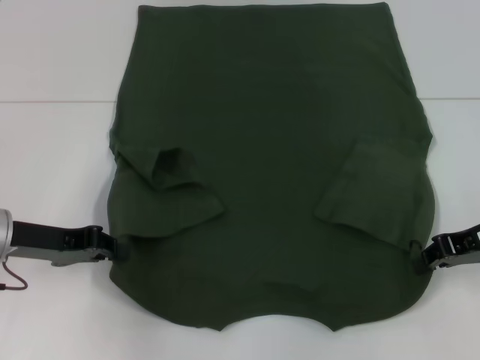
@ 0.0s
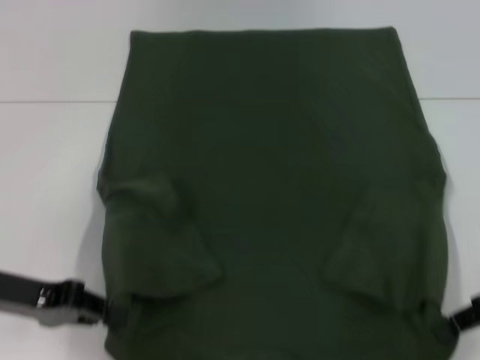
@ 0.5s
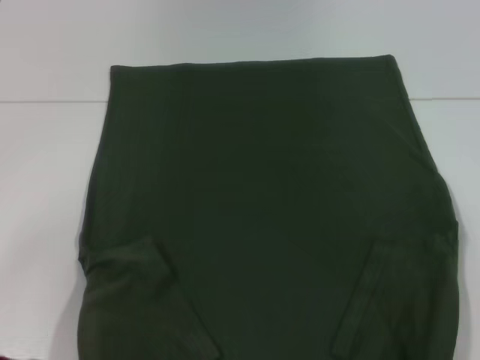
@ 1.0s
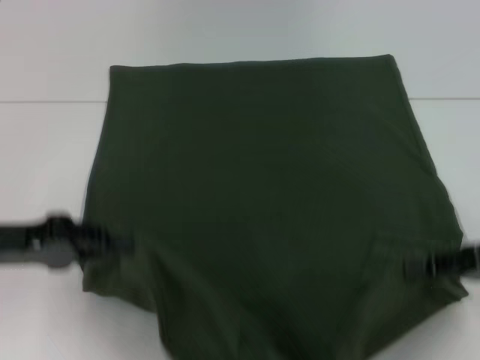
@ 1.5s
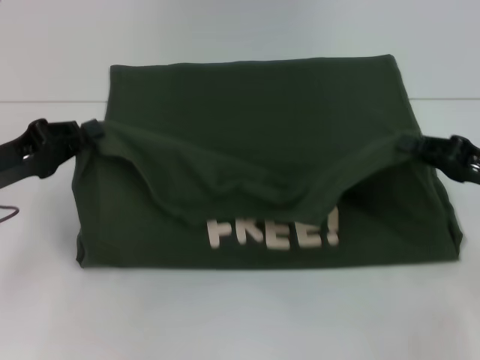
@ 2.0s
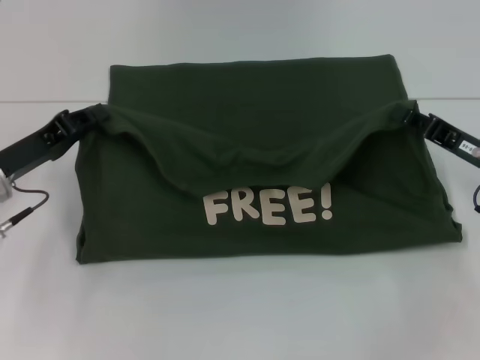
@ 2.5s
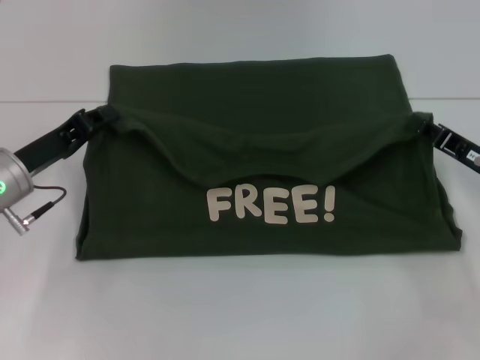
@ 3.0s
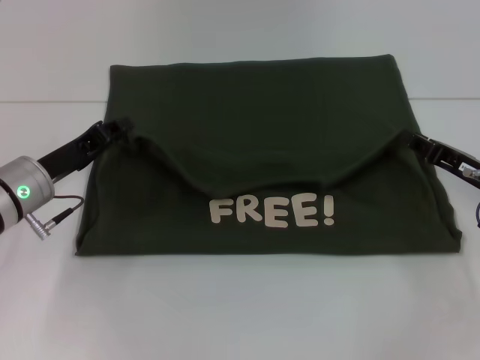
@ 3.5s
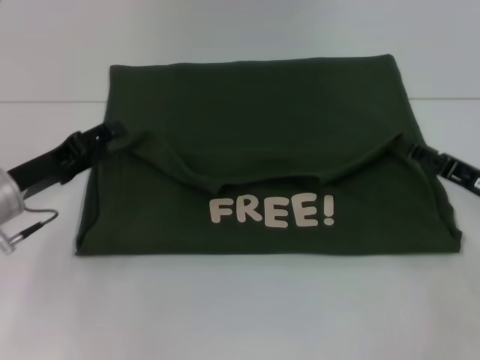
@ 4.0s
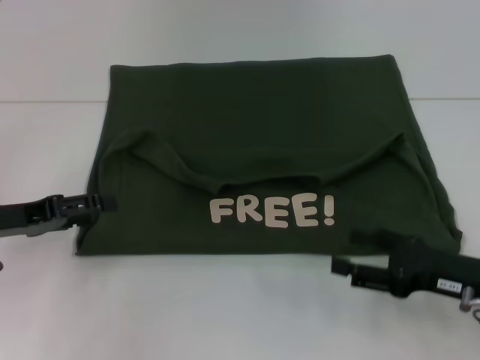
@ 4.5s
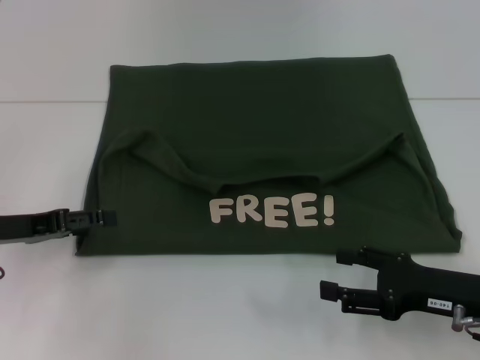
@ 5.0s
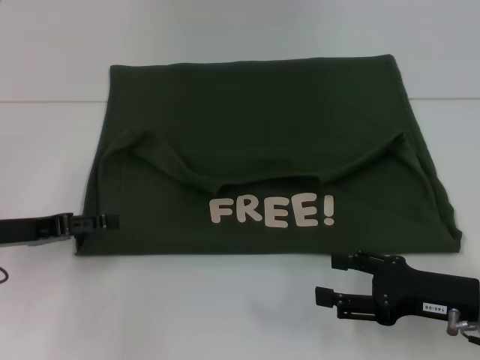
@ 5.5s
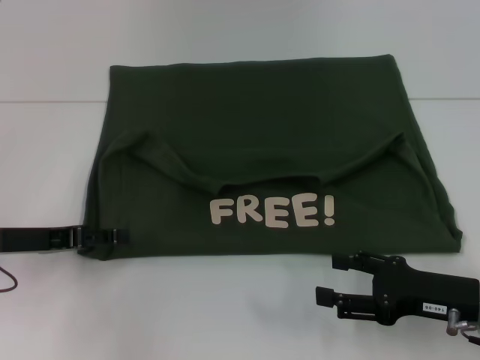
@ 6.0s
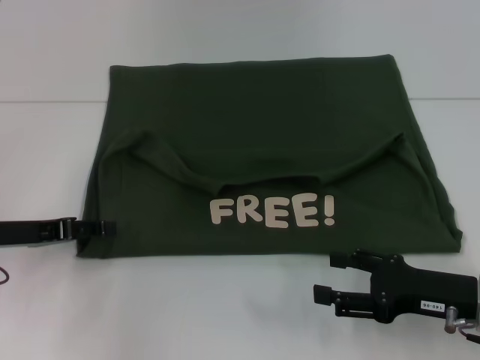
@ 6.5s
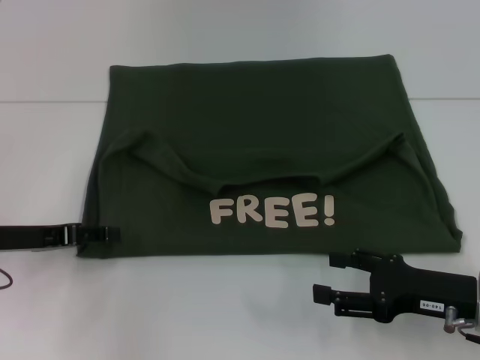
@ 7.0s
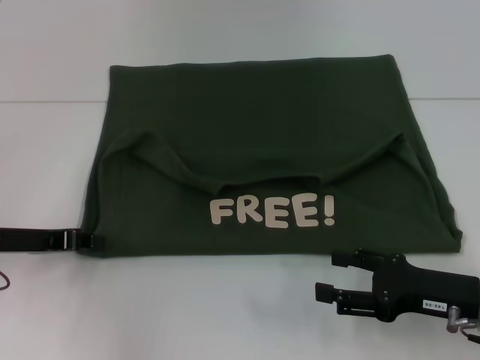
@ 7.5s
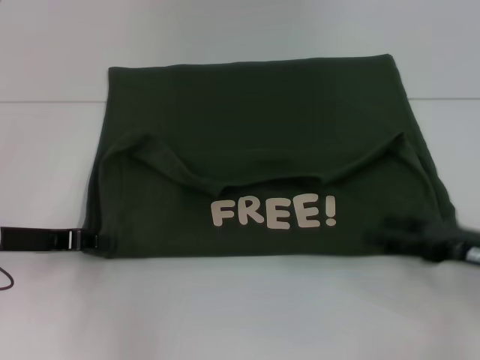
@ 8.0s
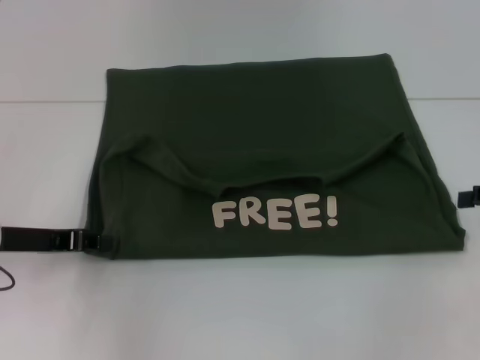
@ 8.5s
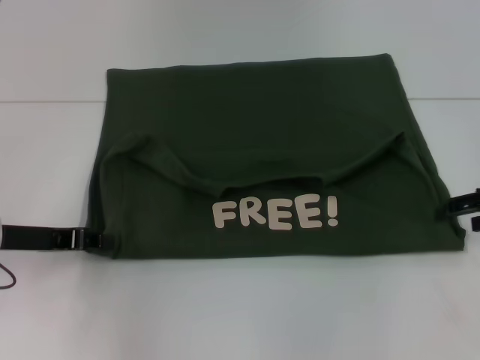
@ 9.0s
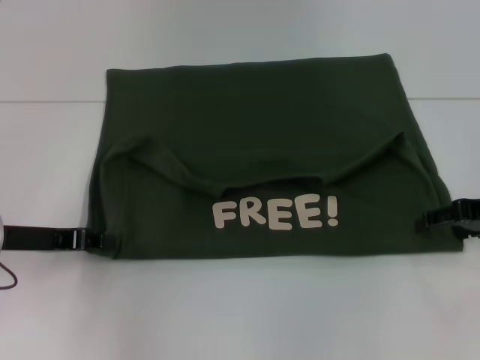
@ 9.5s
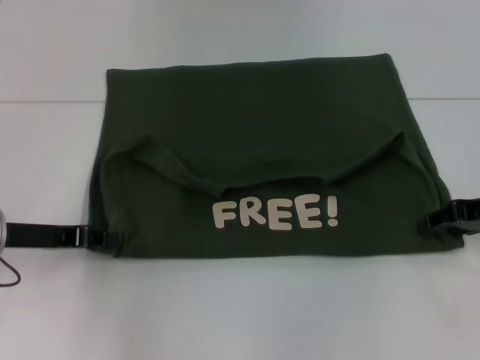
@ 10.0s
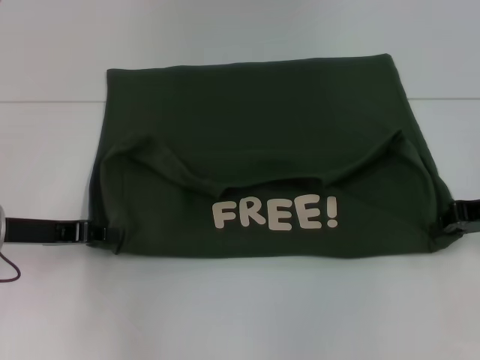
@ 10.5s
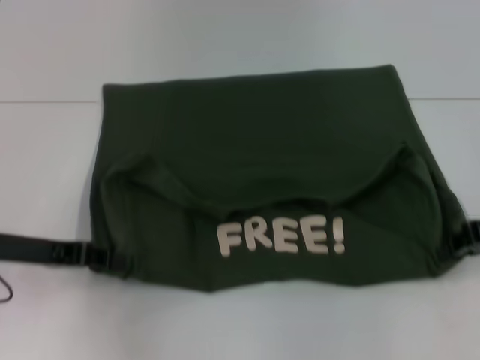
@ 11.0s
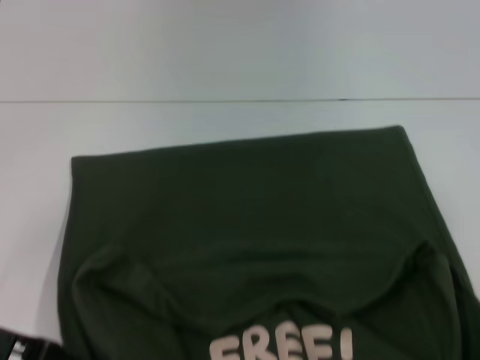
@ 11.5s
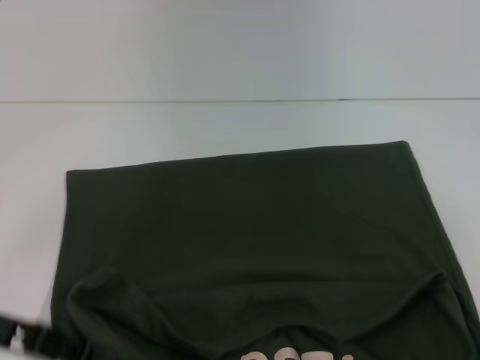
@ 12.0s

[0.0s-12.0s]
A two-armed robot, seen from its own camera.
Step, 0.0s to 3.5s: Fold the clothes with your left hand.
Step, 0.0s to 3.5s: Fold the clothes with your right hand.
Step, 4.0s to 11.5s: Pull the clothes with your left hand.
Step, 4.0s to 11.5s: Pull the clothes with your right hand.
0.0s to 2.0s: The right gripper goes backward and returns, about 10 cm each way. The left gripper moves approximately 10 cm backward and comes back.
2.0s to 4.0s: The left gripper opens up. The right gripper opens up.
4.0s to 6.0s: The right gripper is displaced backward by approximately 5 cm, and opens up.
6.0s to 8.0s: The left gripper closes its fingers; the right gripper changes place by approximately 5 cm.
8.0s to 10.0s: The right gripper moves forward and upward, approximately 10 cm.
10.0s to 12.0s: The grippers both shift backward by about 10 cm. The right gripper closes.

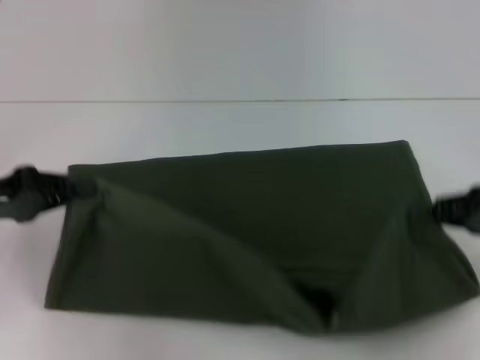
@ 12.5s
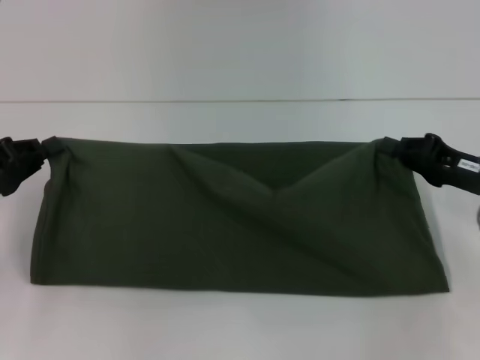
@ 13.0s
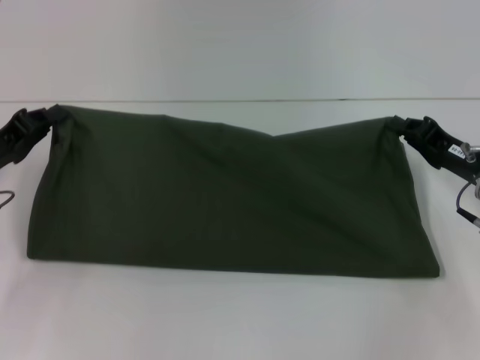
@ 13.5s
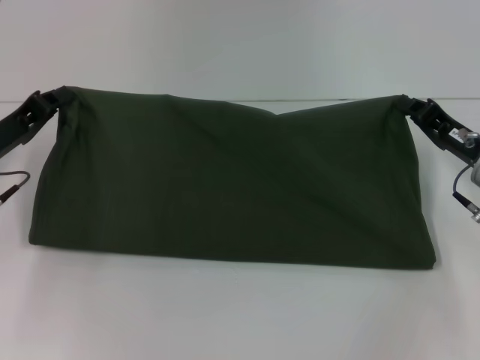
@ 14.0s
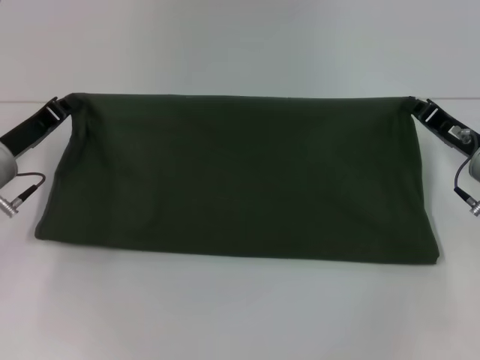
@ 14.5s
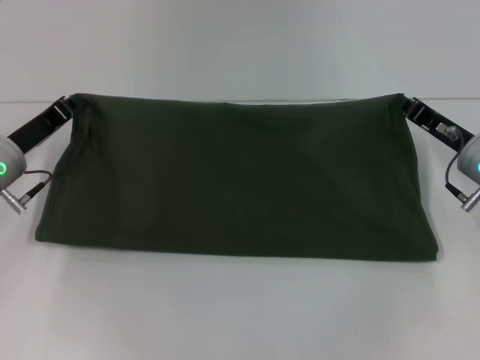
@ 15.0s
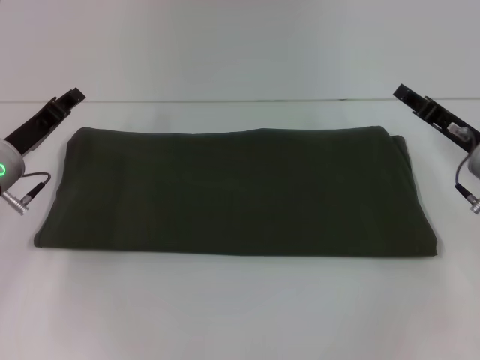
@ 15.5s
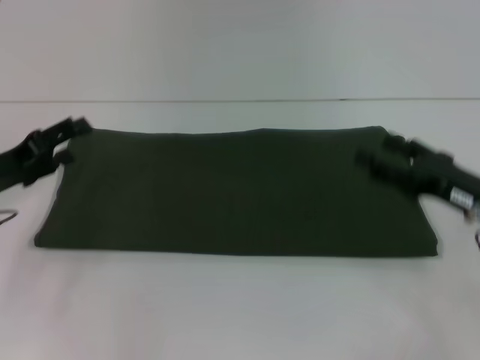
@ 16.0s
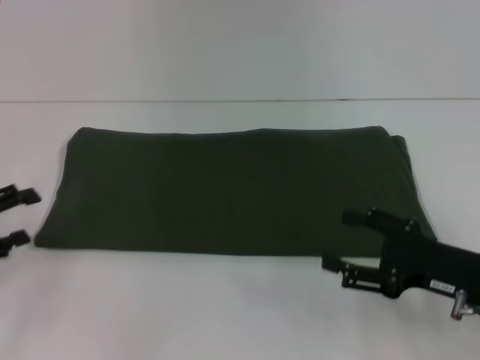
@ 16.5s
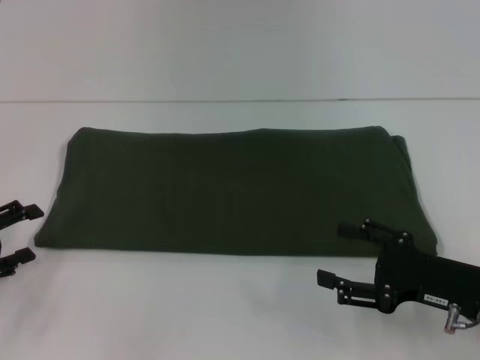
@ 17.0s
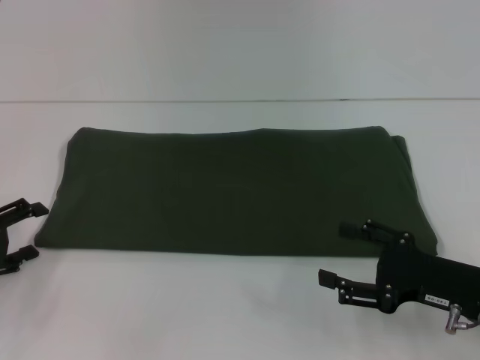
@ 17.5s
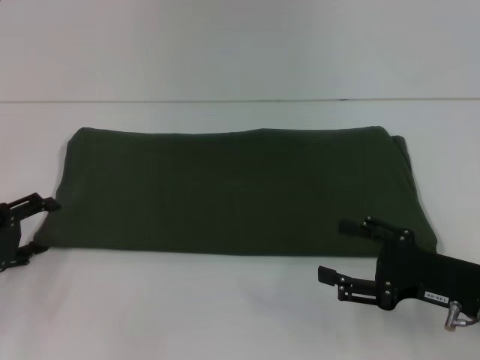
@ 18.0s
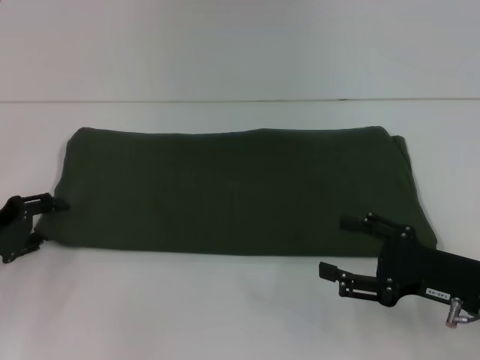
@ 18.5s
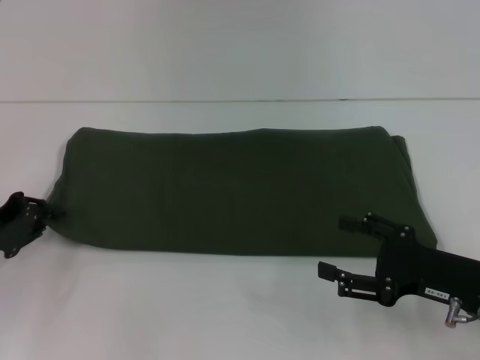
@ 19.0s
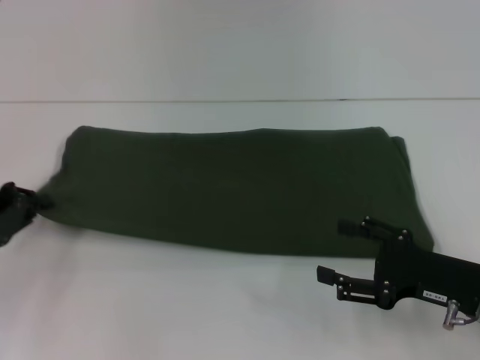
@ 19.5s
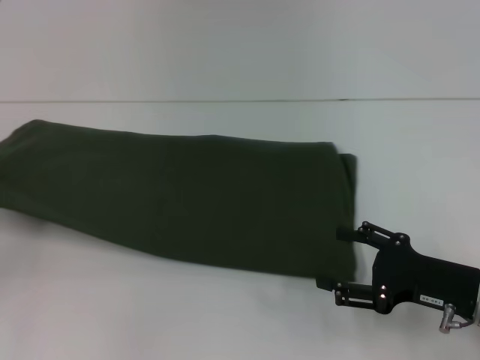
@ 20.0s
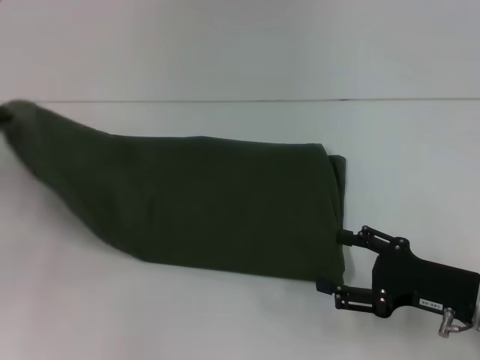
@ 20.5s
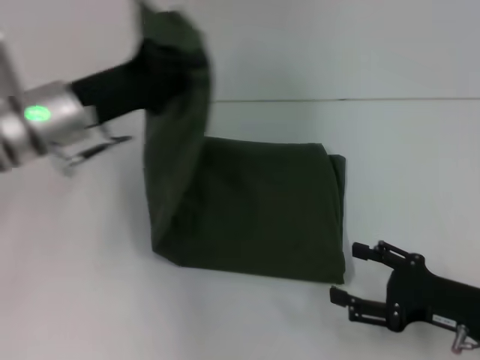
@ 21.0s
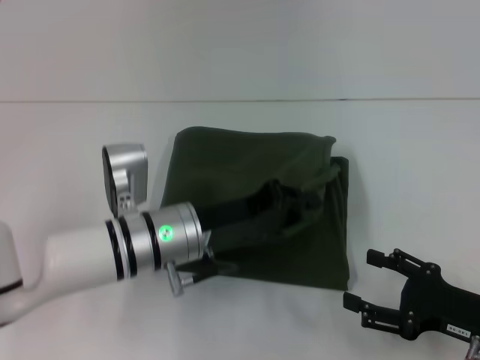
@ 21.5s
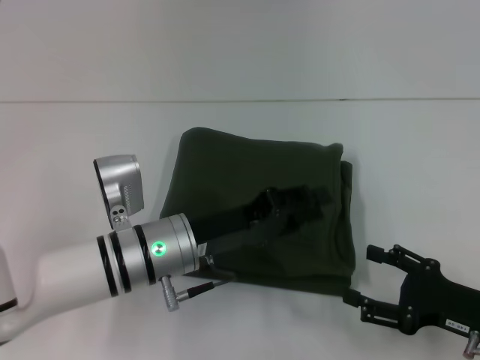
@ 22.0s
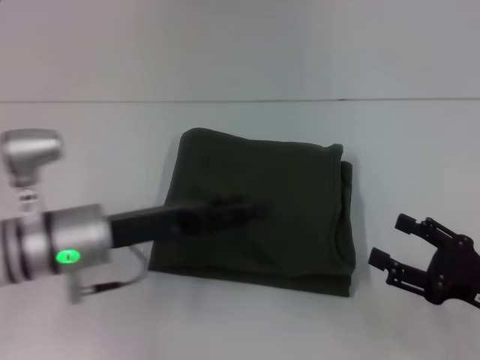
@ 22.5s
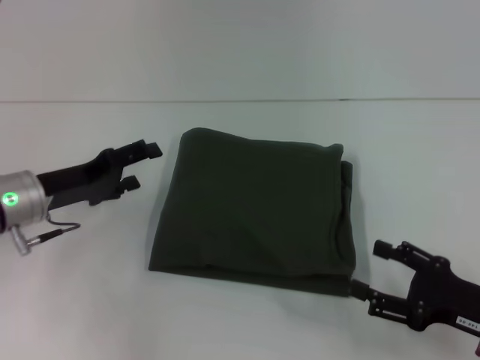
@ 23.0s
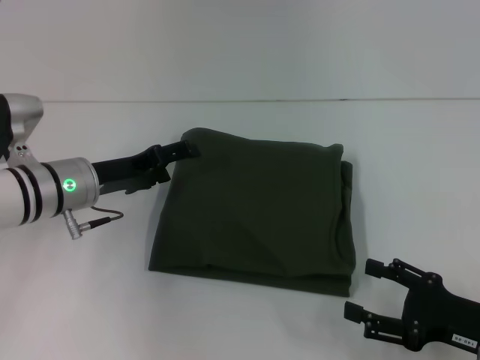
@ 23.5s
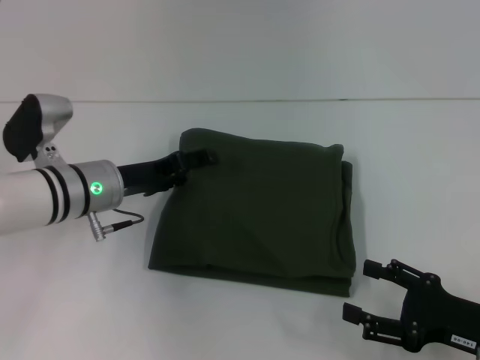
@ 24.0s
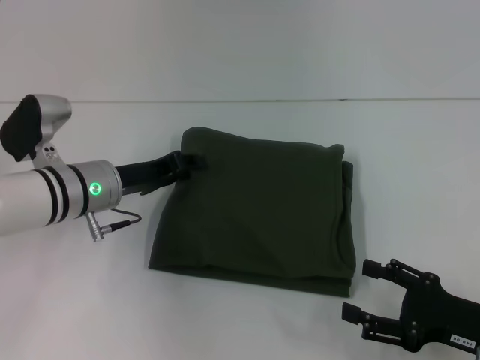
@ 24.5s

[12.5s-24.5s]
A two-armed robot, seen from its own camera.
Step, 12.5s to 15.5s: Fold the clothes with your right hand.
Step, 12.5s to 22.5s: Fold the clothes with your left hand.
12.5s to 14.5s: The left gripper shifts approximately 5 cm forward; the right gripper heads forward, downward and to the left, covering some 10 cm.
14.5s to 16.5s: The left gripper heads backward and to the left, covering about 15 cm, and opens; the right gripper heads backward, covering some 10 cm, and opens.
16.5s to 18.5s: The left gripper ends up approximately 5 cm from where it was.
18.5s to 20.5s: The left gripper moves upward, roughly 5 cm, and closes its fingers.
20.5s to 22.5s: The left gripper is displaced to the right by about 20 cm, and opens up.
22.5s to 24.5s: The left gripper goes roughly 5 cm forward.

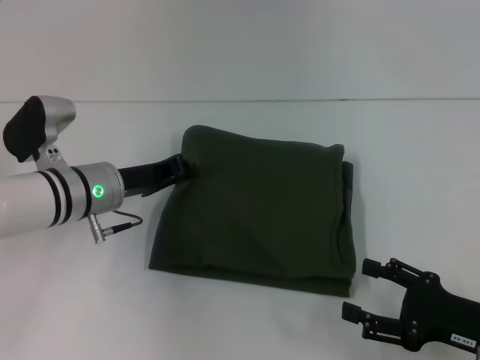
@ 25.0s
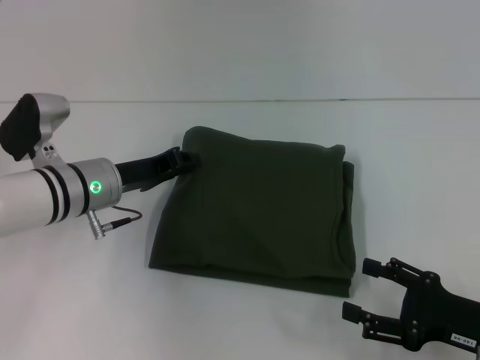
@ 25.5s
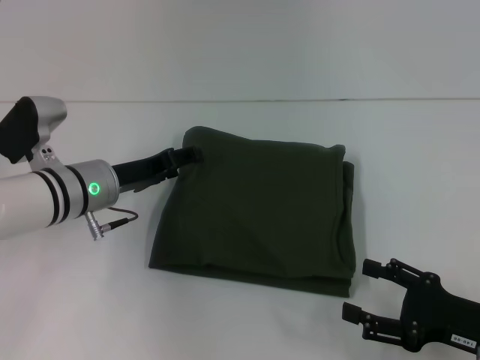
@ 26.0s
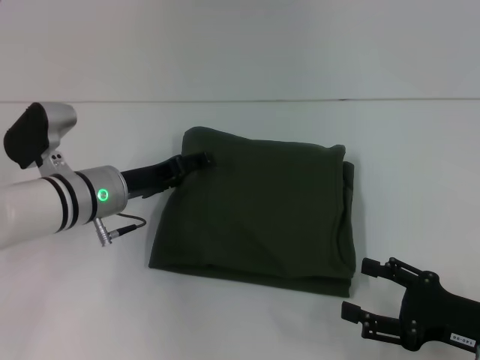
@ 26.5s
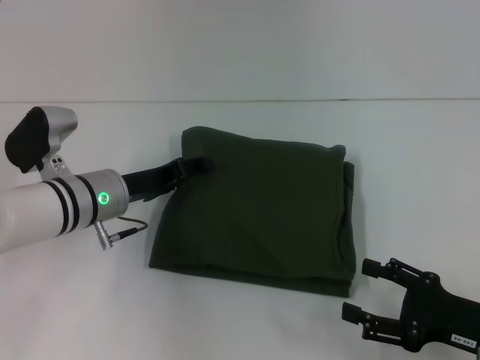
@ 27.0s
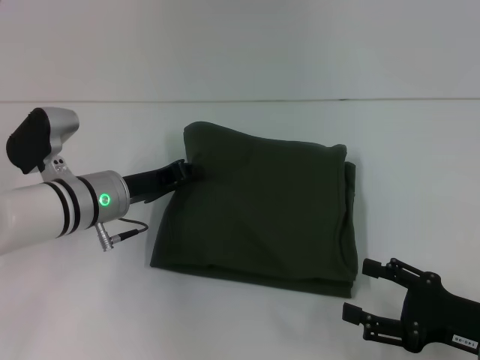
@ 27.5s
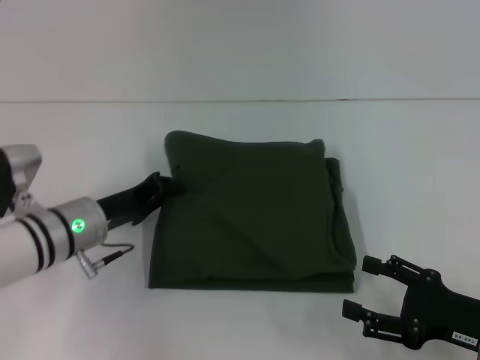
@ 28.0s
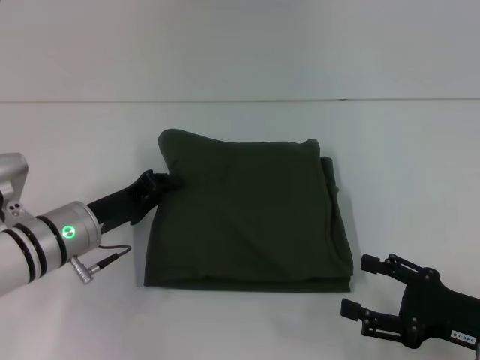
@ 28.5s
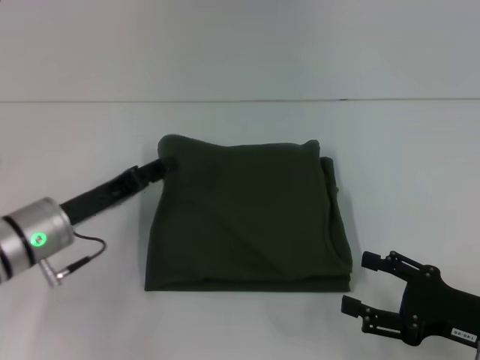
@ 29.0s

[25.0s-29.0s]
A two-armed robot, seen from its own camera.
25.0s to 27.0s: The left gripper opens its fingers.
27.0s to 29.0s: The left gripper goes about 5 cm backward, and closes.
